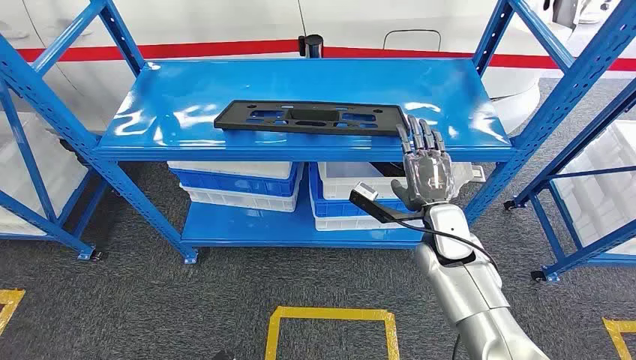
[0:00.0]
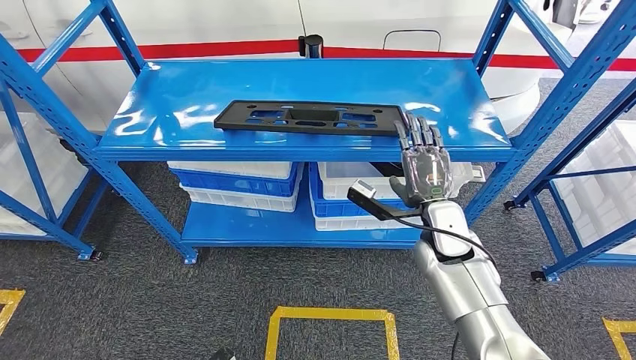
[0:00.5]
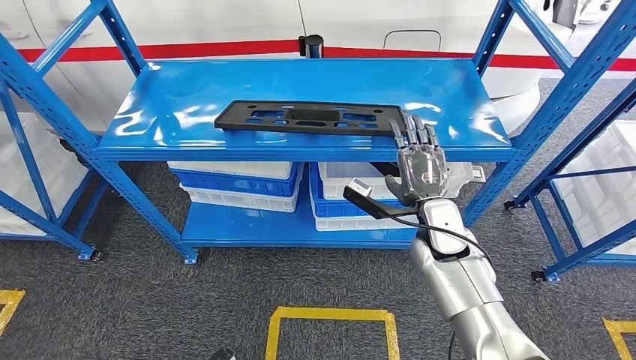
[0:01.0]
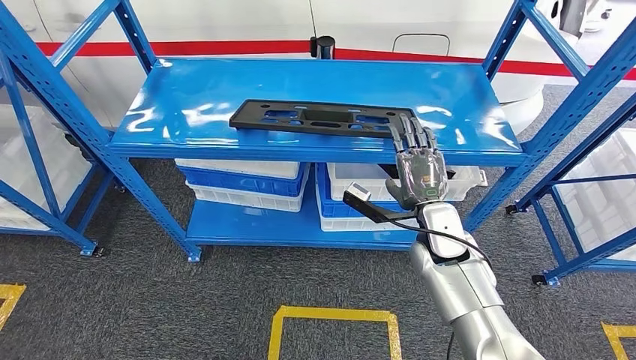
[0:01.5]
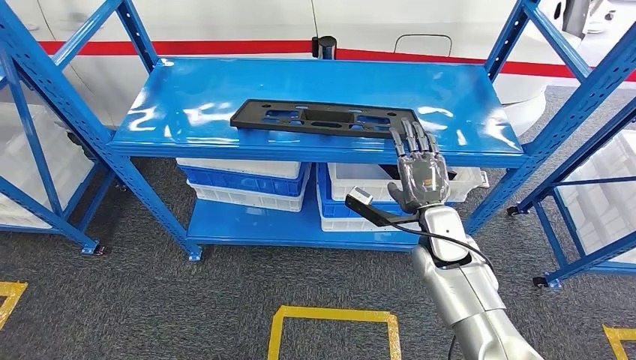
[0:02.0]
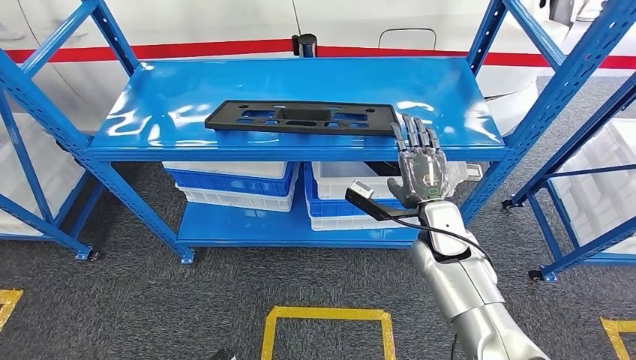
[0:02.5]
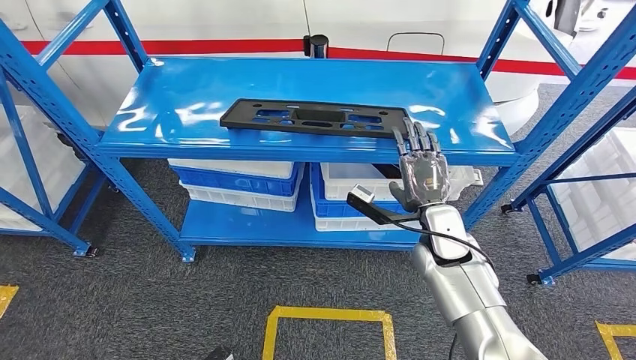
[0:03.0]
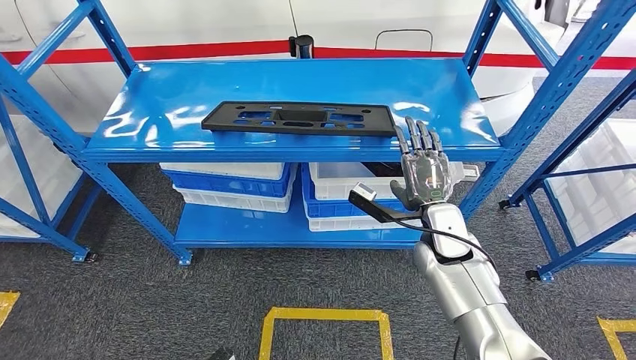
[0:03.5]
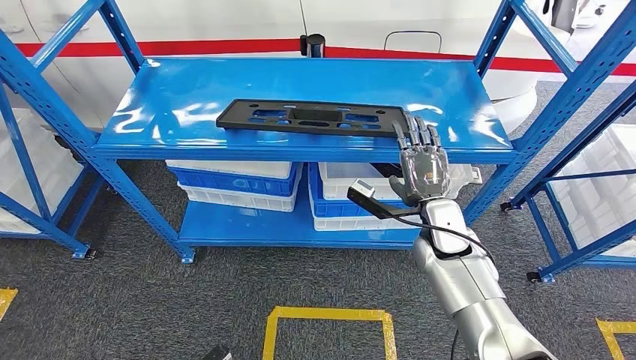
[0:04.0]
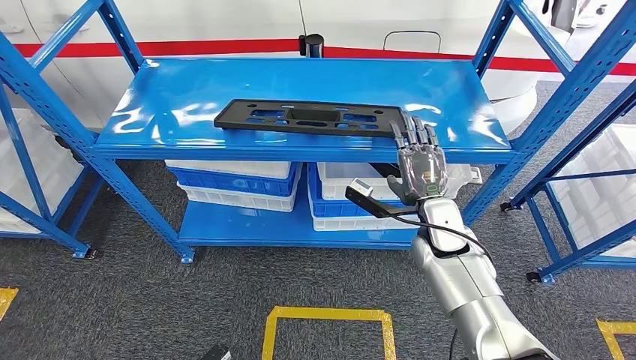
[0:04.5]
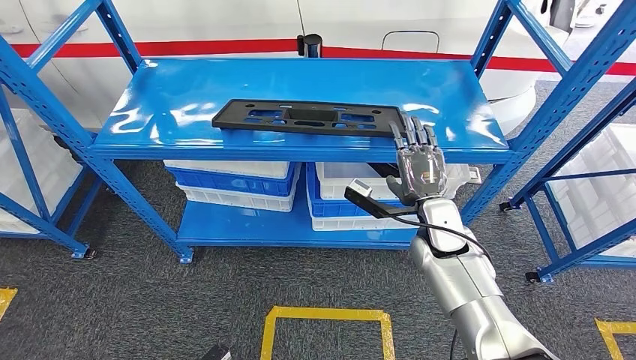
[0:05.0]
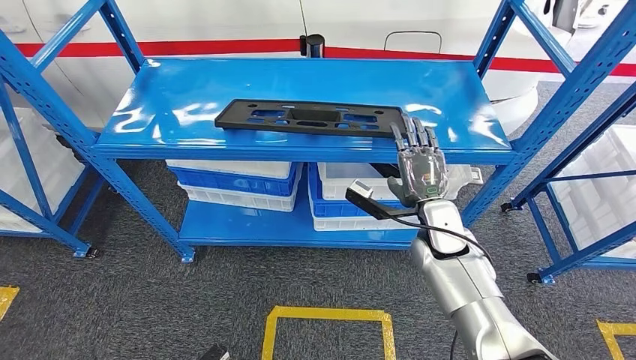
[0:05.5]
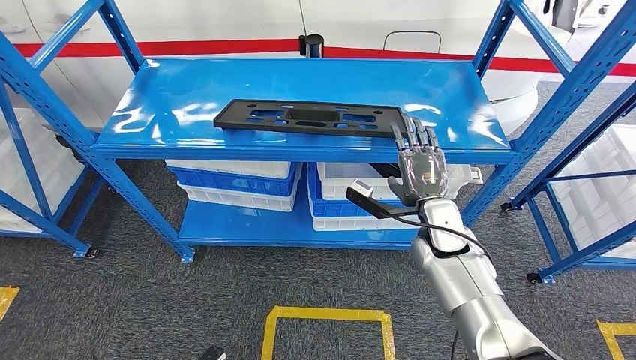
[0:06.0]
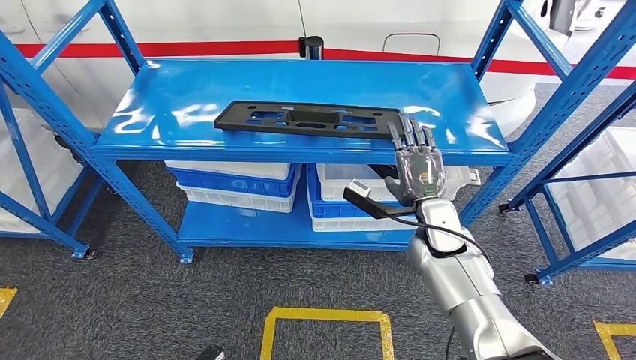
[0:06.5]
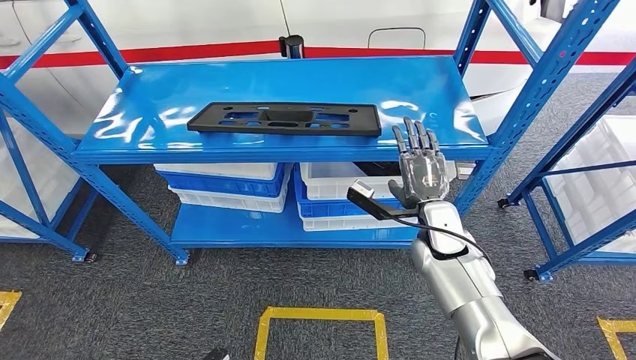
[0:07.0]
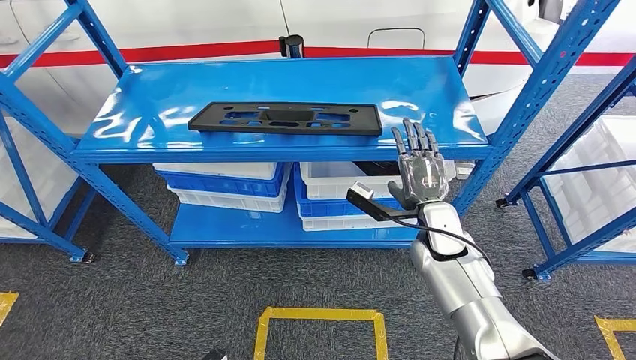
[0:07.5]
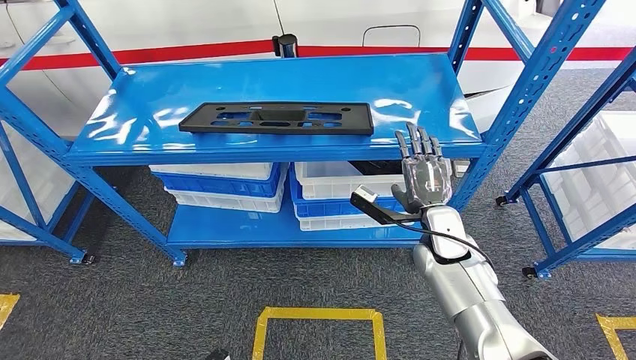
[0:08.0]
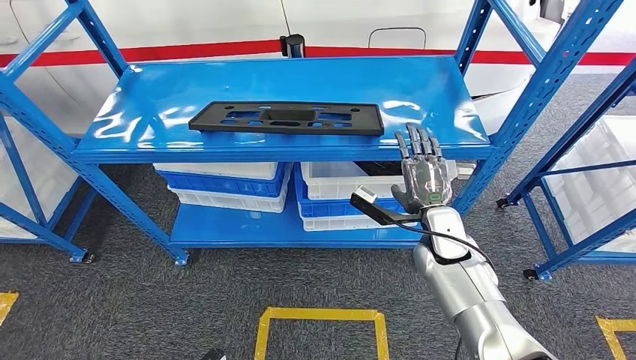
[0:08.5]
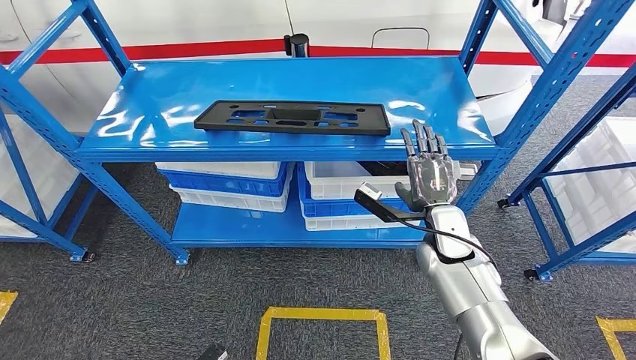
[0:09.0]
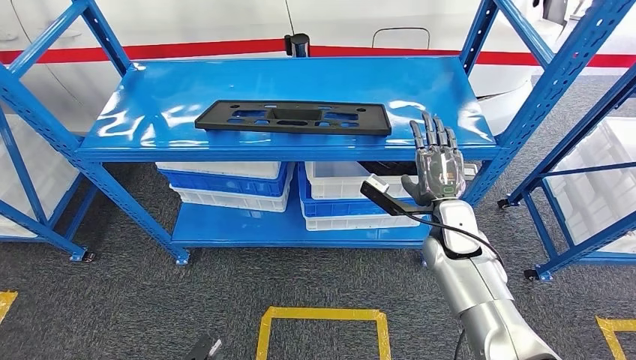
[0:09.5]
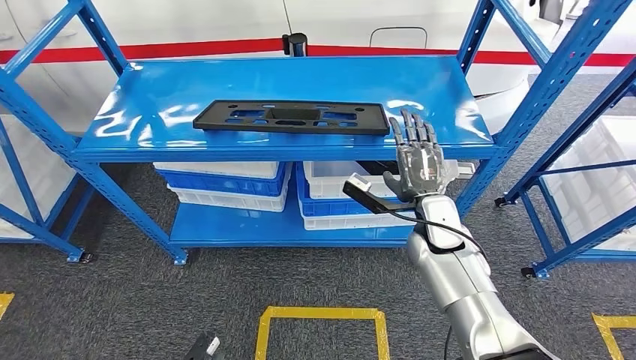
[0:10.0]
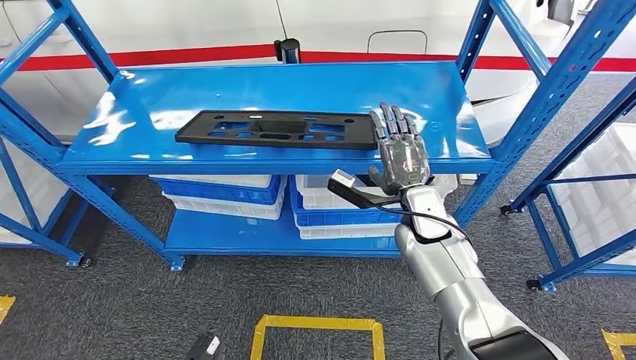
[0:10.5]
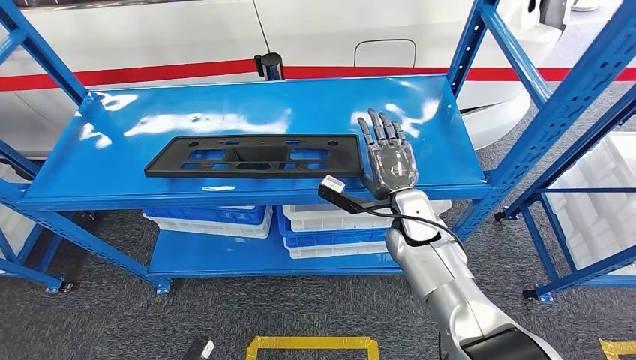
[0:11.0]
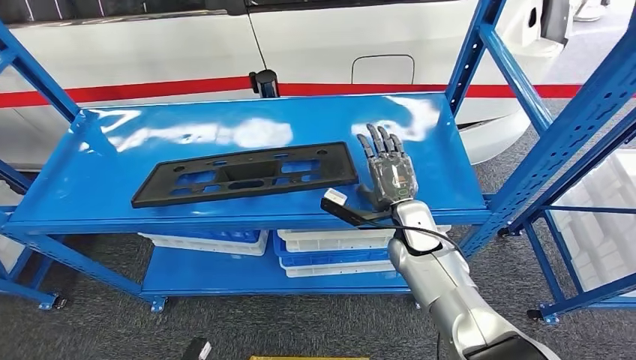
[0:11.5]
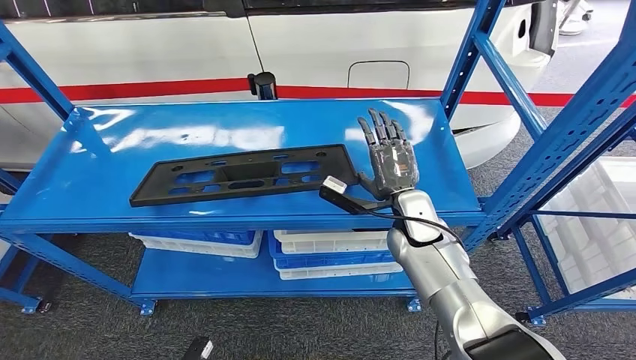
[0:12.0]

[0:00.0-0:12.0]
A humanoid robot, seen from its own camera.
0:04.0 to 0:06.0: The hands move only a little.

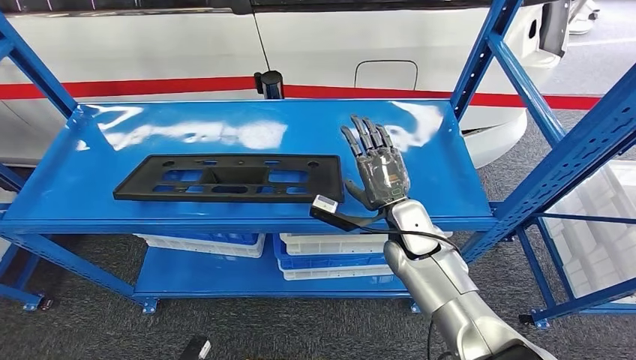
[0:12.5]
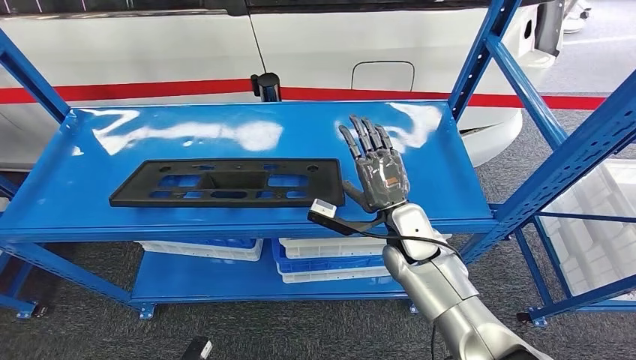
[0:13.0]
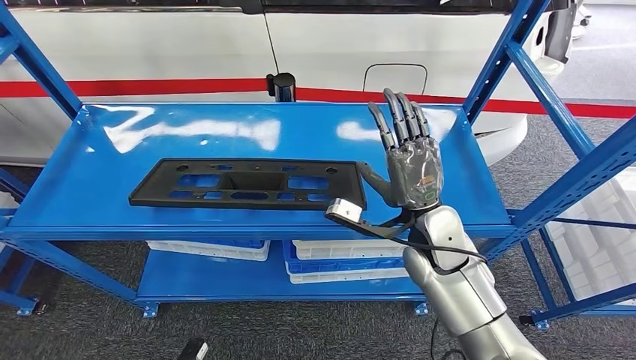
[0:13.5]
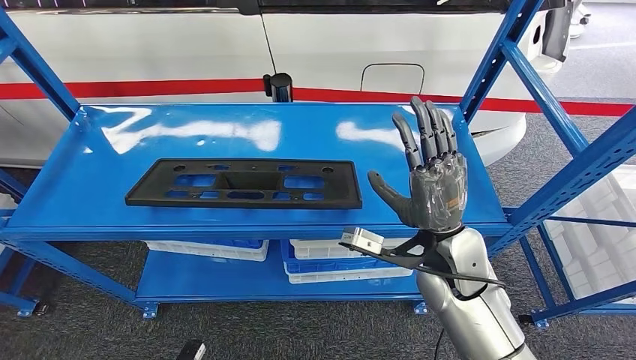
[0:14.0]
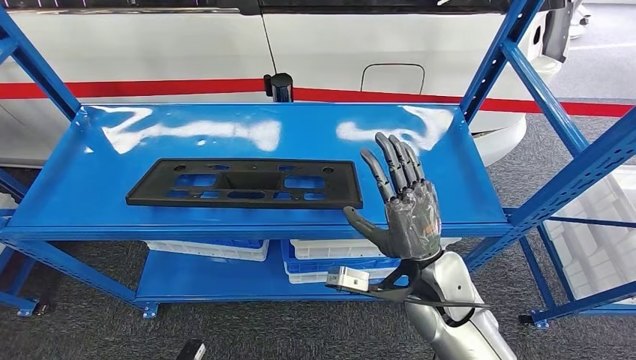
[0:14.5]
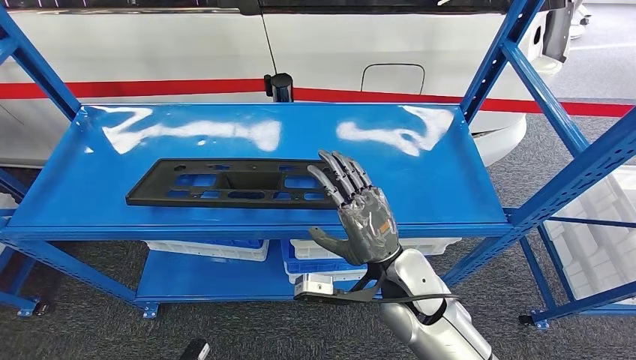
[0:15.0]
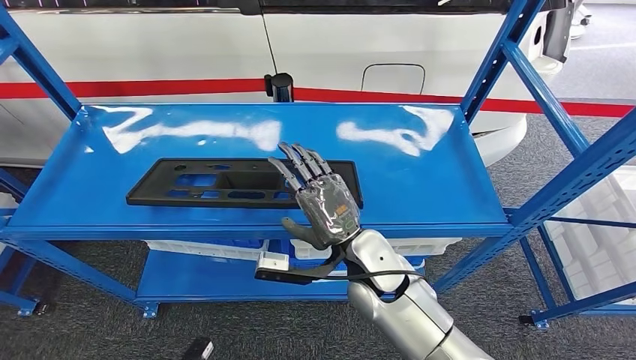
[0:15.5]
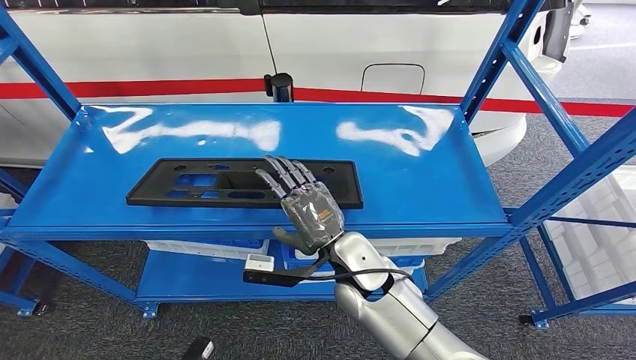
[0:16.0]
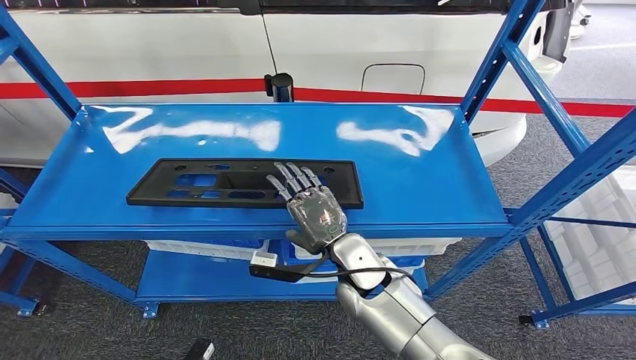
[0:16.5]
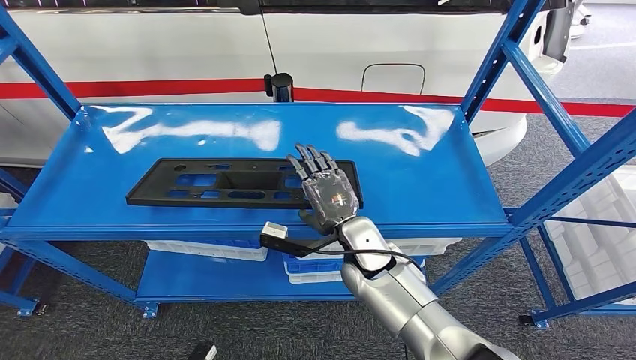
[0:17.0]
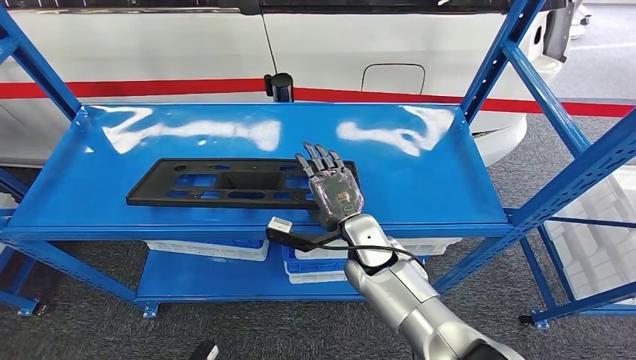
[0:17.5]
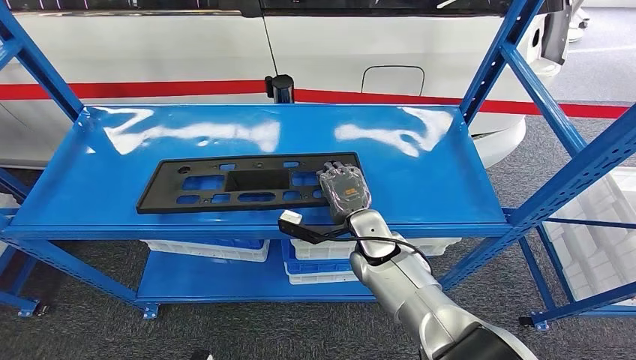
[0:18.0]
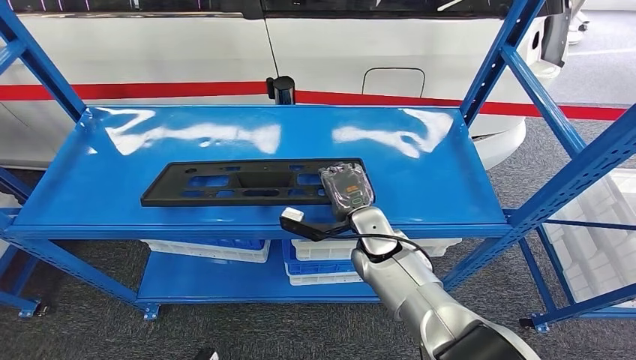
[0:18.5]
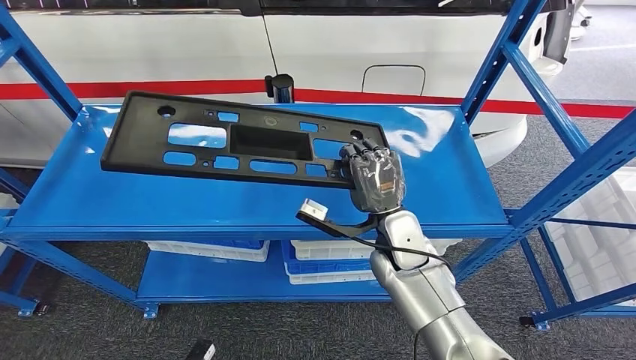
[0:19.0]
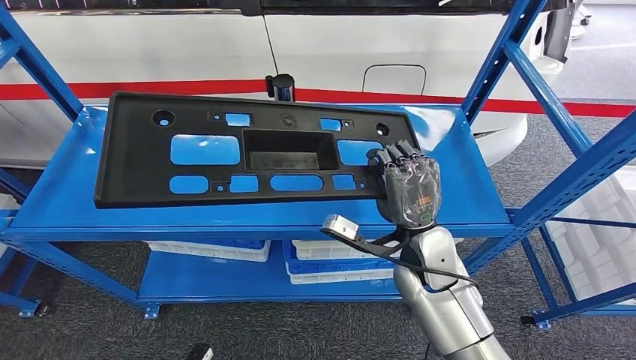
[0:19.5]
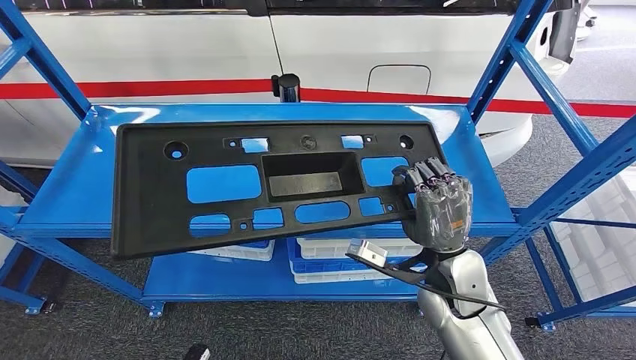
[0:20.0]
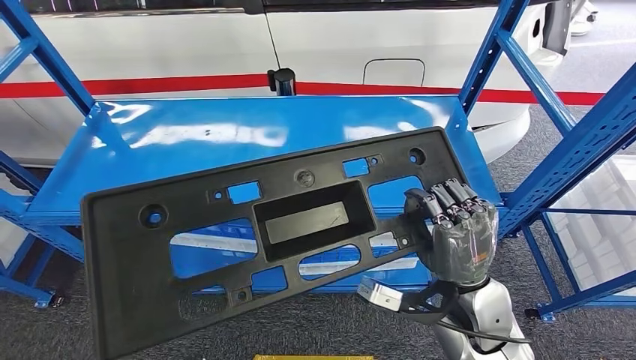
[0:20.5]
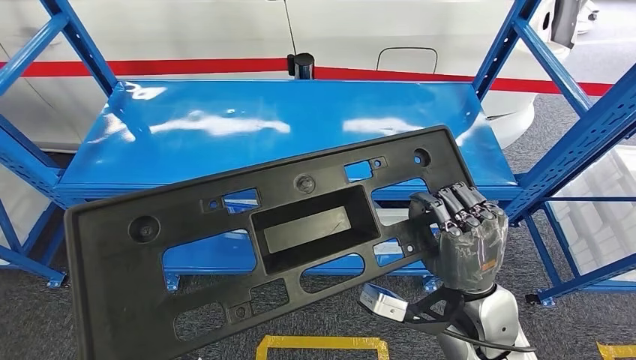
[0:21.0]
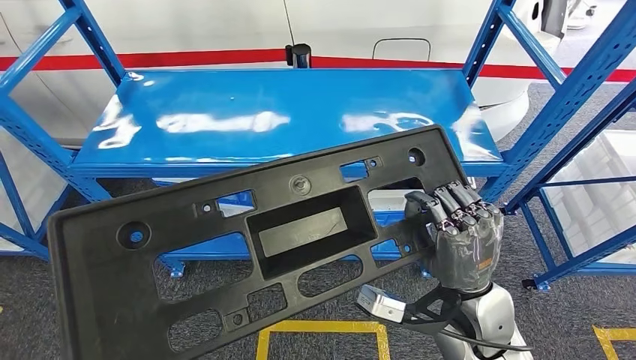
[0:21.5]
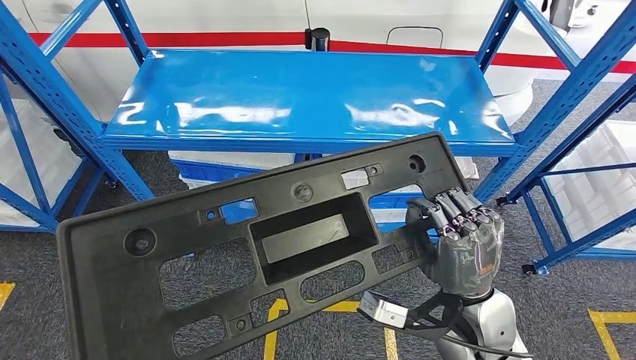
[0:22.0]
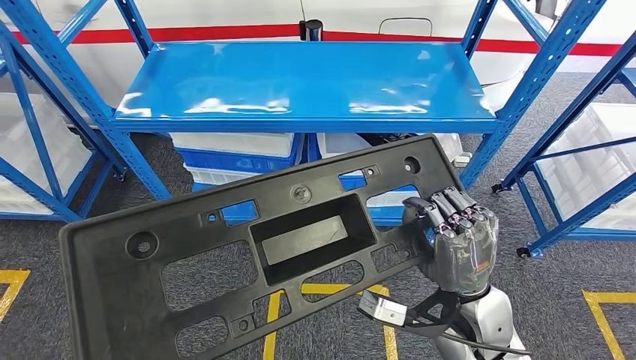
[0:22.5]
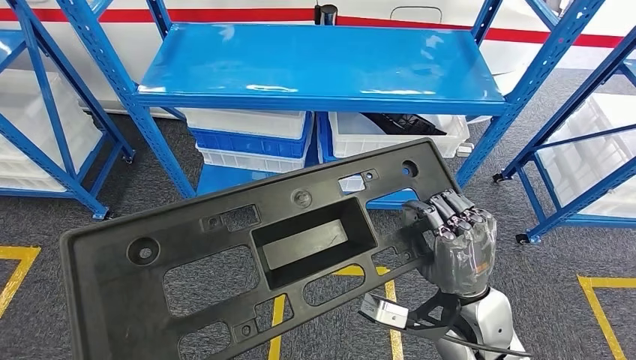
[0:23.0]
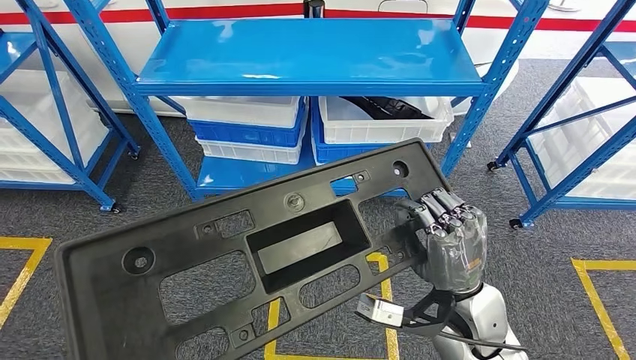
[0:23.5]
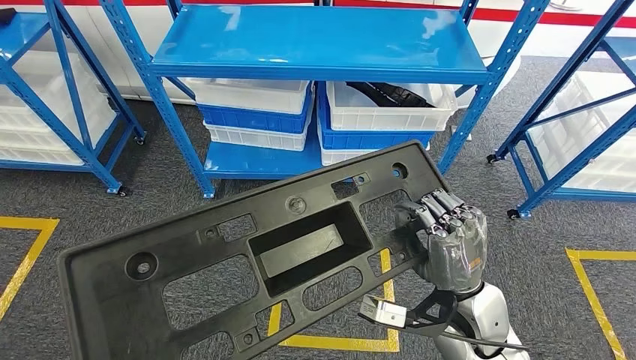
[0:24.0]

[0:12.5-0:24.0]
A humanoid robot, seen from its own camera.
Step, 0:12.5 to 0:20.0: Pick up the large material from the shelf.
0:14.5 to 0:16.5: The right hand heads to the left, covering about 10 cm.
